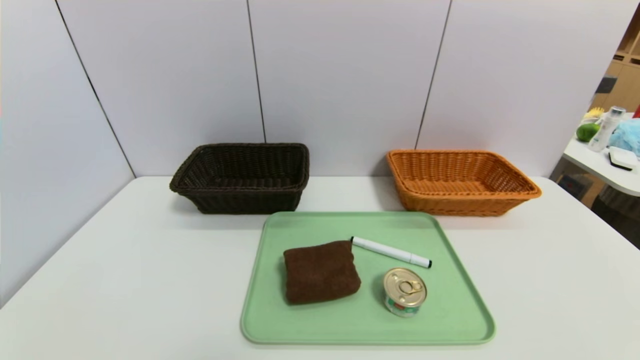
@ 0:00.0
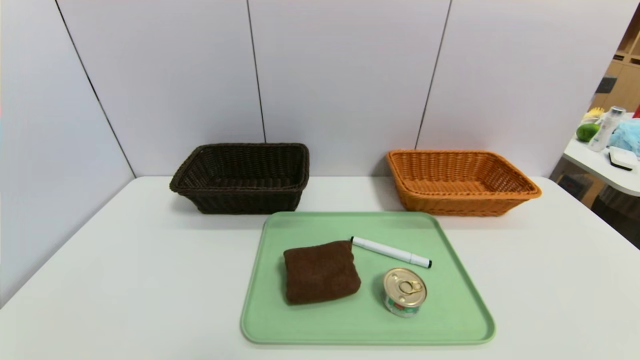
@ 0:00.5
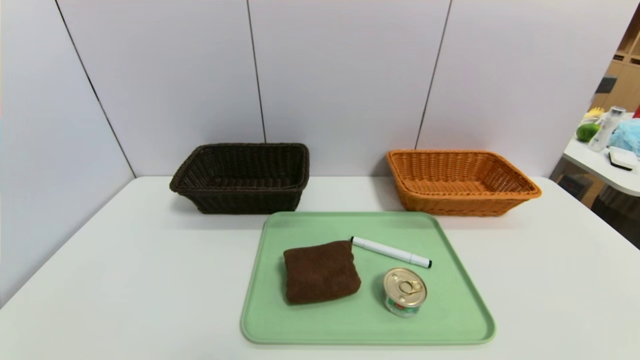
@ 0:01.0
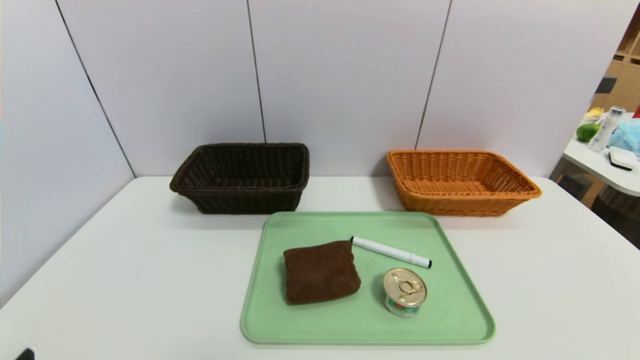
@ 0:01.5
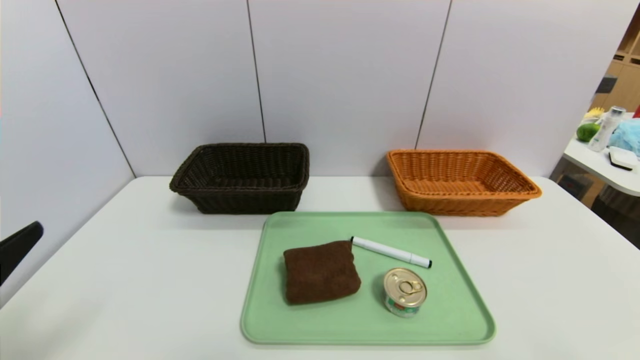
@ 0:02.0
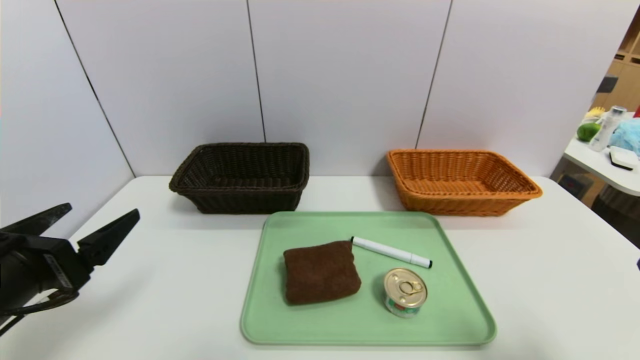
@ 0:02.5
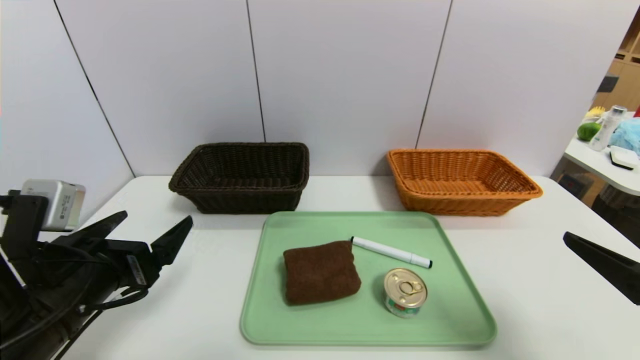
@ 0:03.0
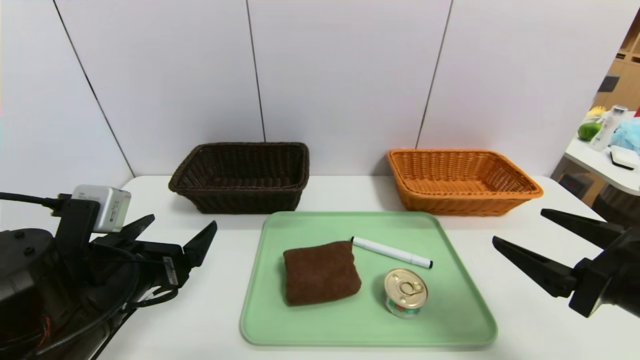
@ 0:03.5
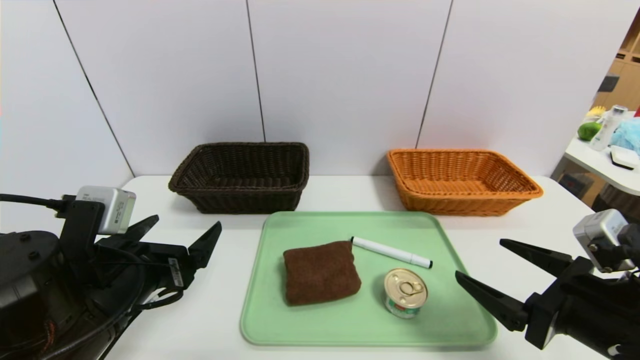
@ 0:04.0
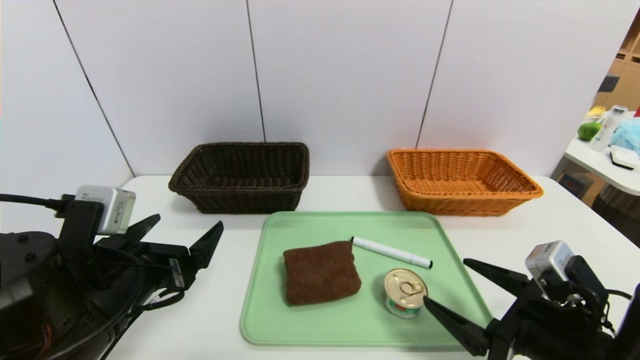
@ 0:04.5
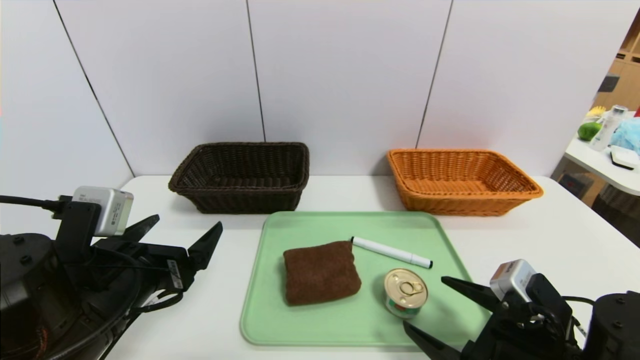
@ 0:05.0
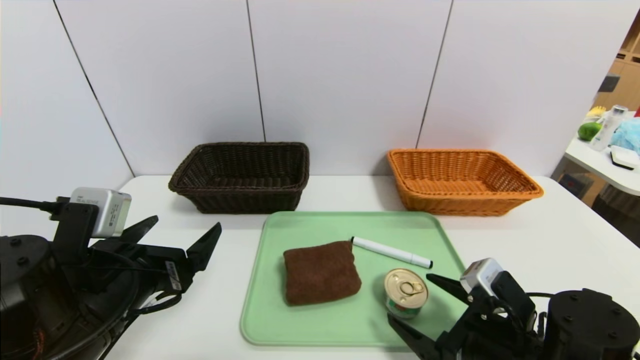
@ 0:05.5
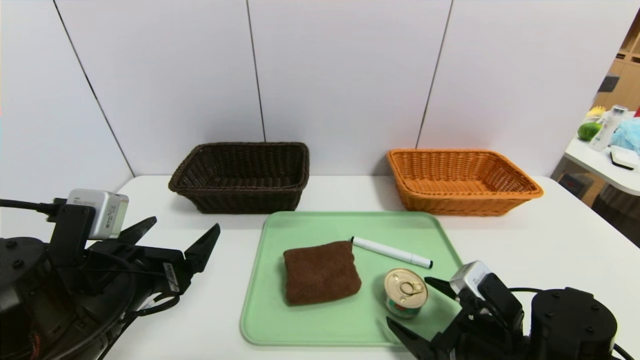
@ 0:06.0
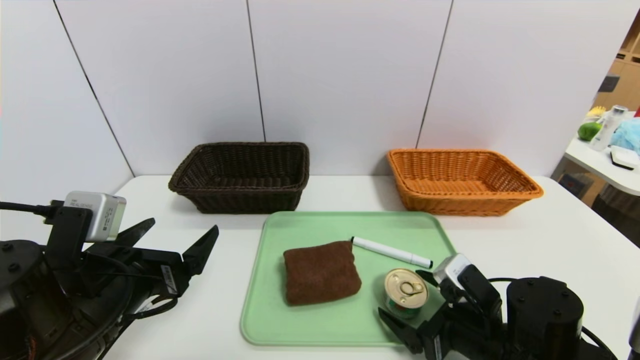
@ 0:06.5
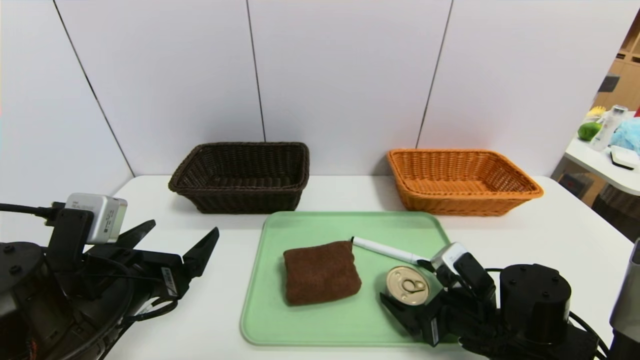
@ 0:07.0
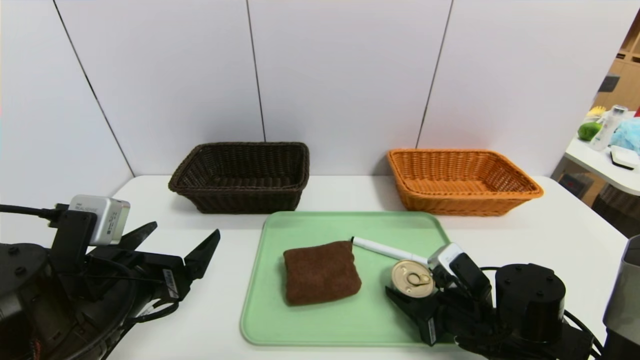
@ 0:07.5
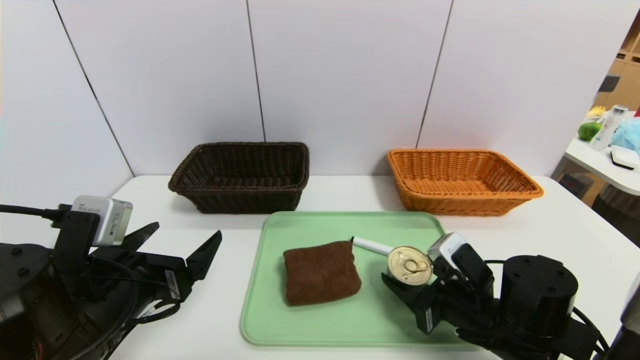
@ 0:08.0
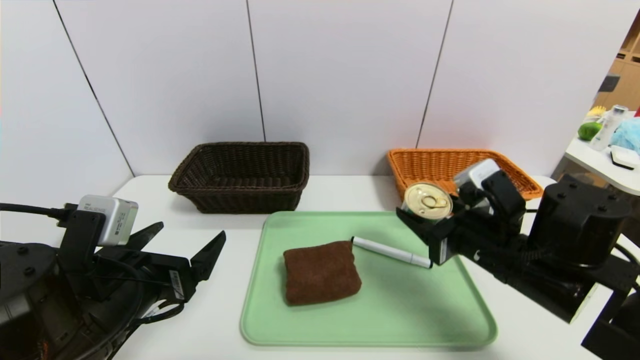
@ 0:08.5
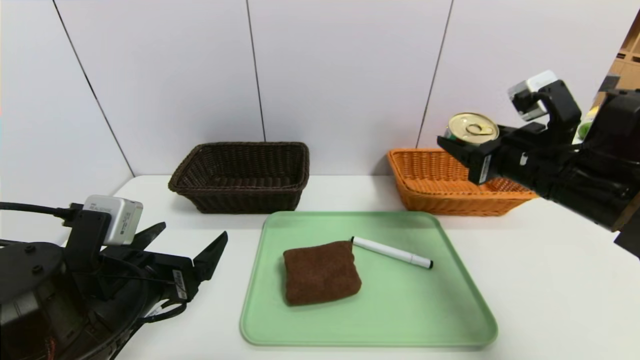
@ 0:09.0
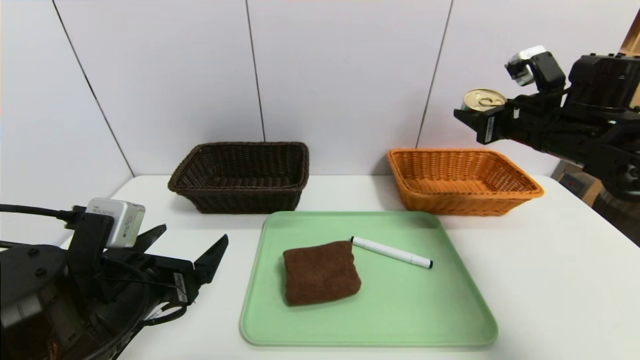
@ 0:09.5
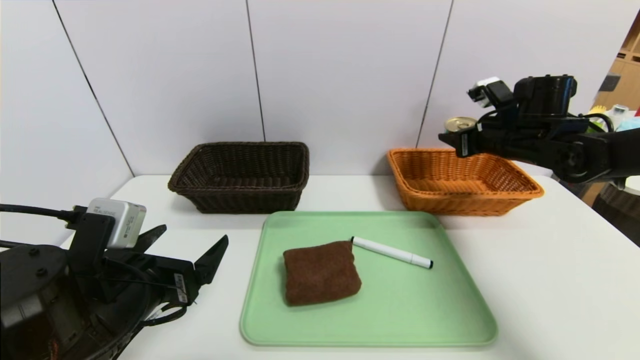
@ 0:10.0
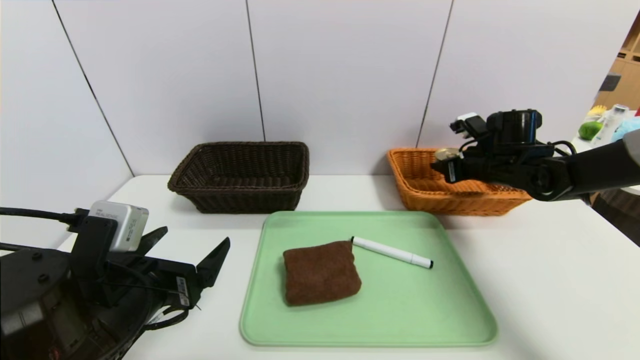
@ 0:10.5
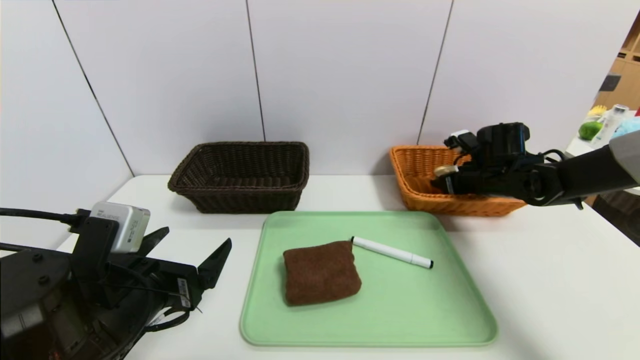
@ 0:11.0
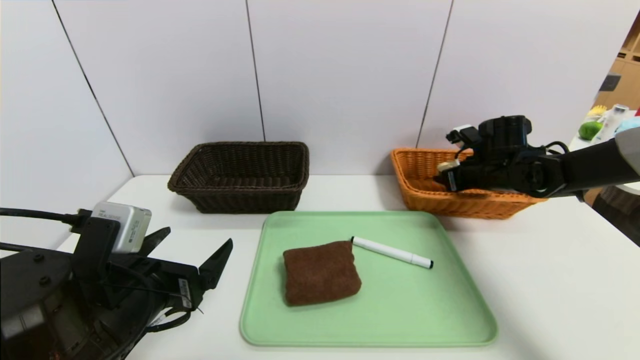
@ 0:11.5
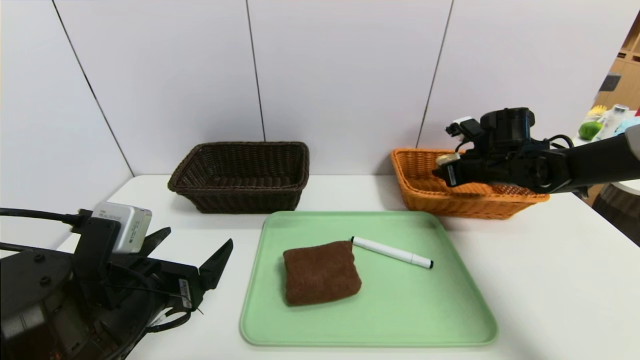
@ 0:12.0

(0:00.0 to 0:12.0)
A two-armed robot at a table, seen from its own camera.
Task of the whole recording: place the food in the right basket with the right gripper, and place the non food items in the left basket with the left gripper.
0:00.0 - 0:02.0: The left gripper heads upward and forward, covering approximately 15 cm.
0:02.0 - 0:04.0: The right gripper goes about 15 cm forward, to the left and downward. The left gripper moves forward, to the right and downward, approximately 15 cm.
0:04.0 - 0:06.0: The right gripper moves downward and to the left, roughly 10 cm.
0:06.0 - 0:08.0: The right gripper closes.
0:08.0 - 0:10.0: The right gripper travels forward, upward and to the right by about 25 cm.
0:10.0 - 0:12.0: The right gripper travels downward by approximately 5 cm.

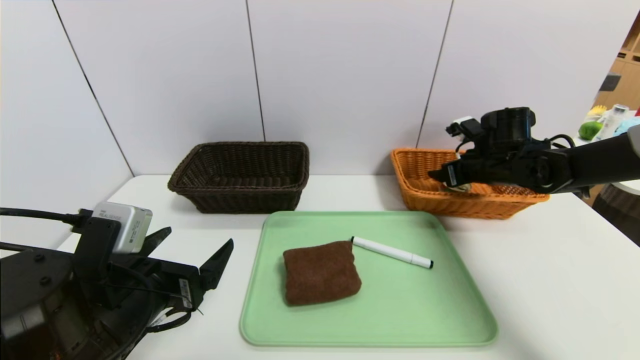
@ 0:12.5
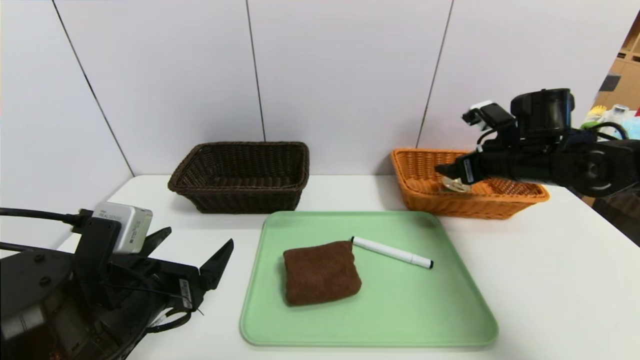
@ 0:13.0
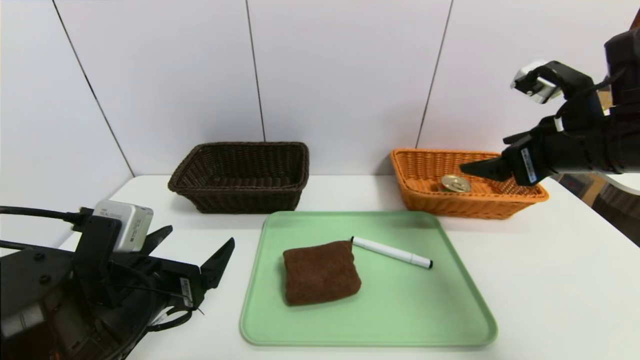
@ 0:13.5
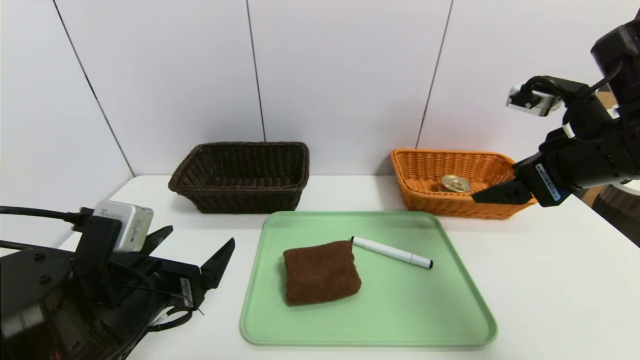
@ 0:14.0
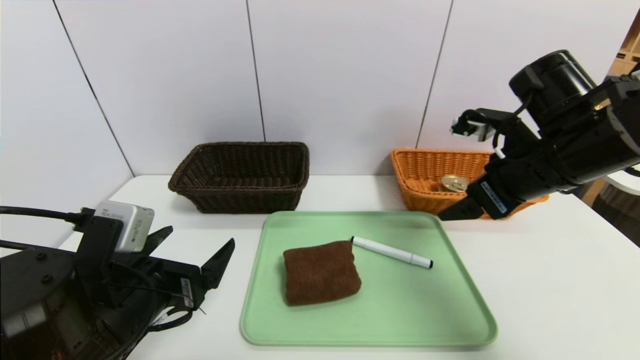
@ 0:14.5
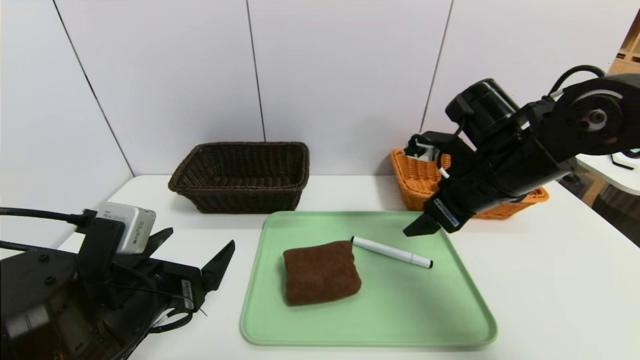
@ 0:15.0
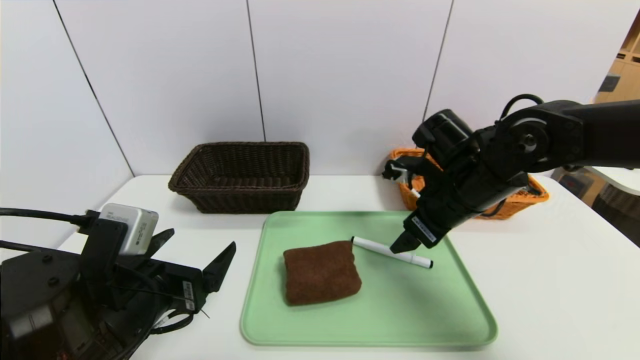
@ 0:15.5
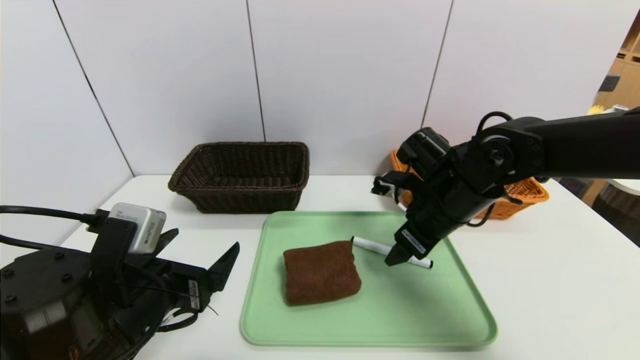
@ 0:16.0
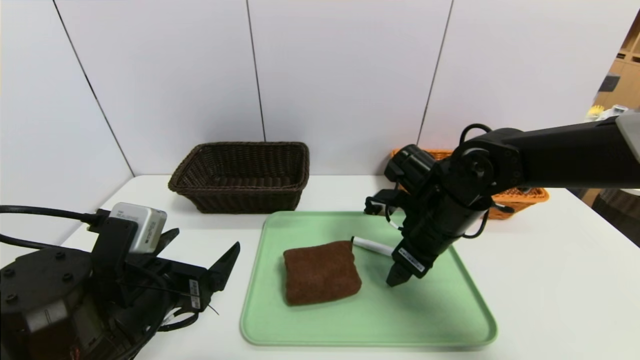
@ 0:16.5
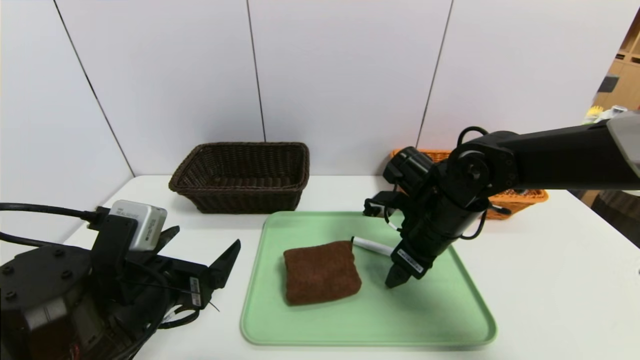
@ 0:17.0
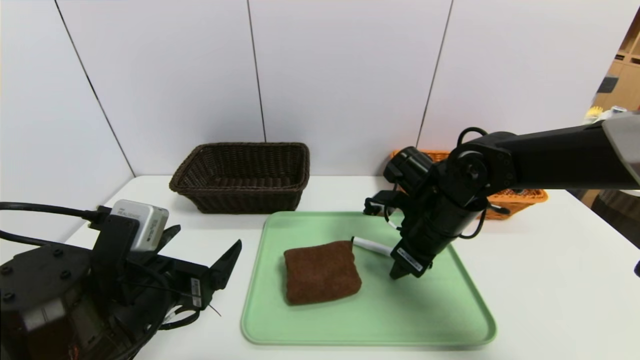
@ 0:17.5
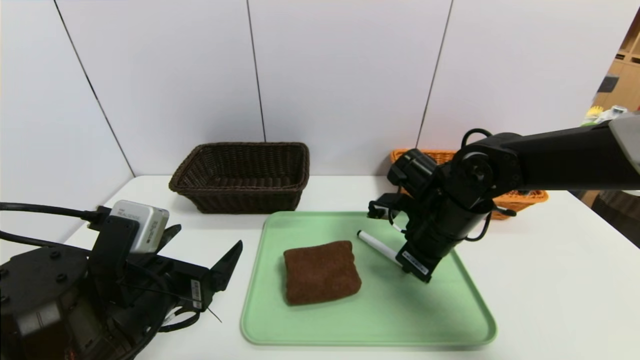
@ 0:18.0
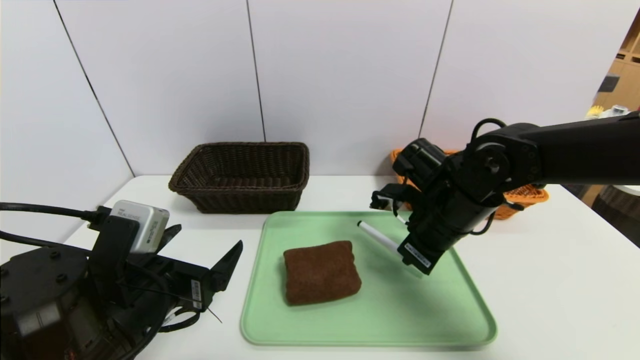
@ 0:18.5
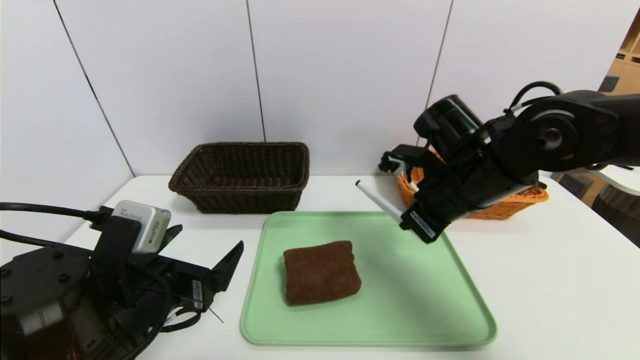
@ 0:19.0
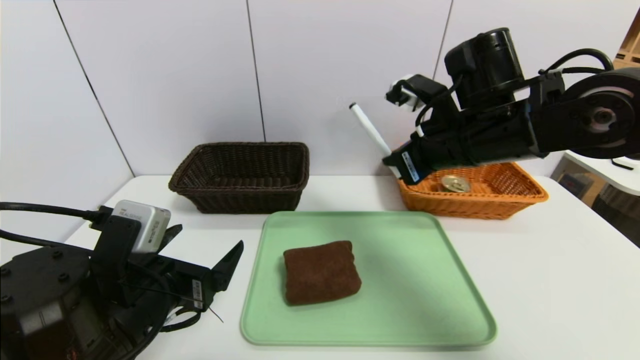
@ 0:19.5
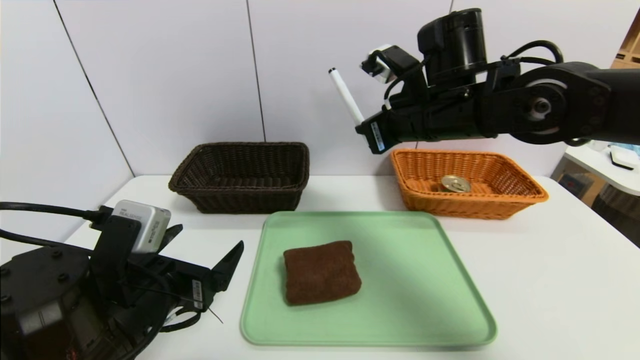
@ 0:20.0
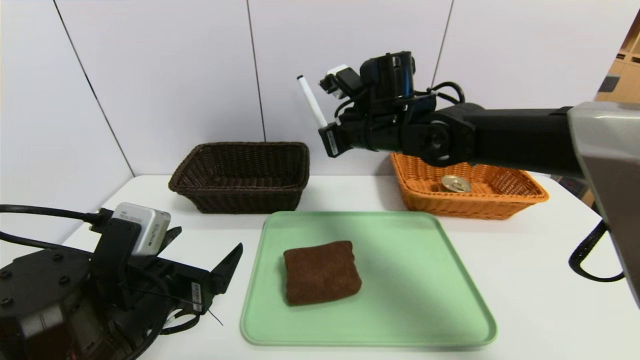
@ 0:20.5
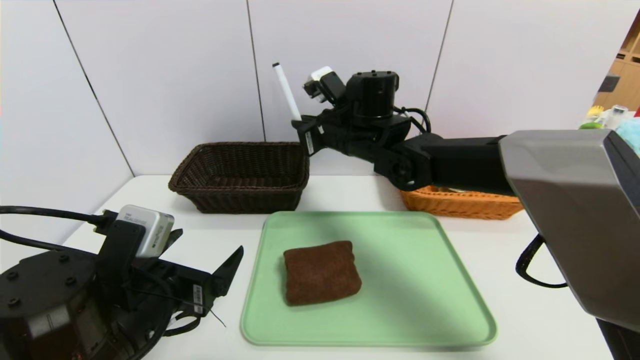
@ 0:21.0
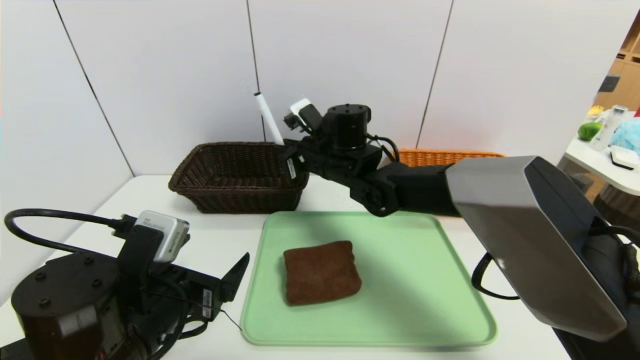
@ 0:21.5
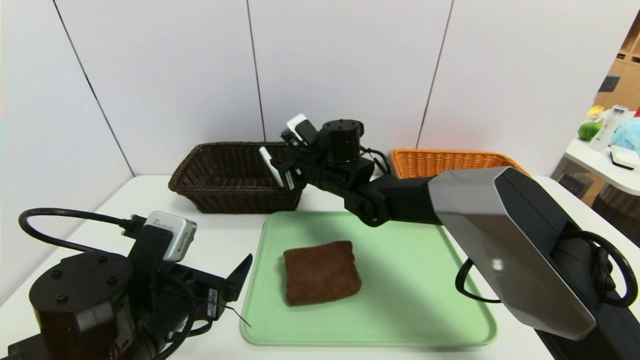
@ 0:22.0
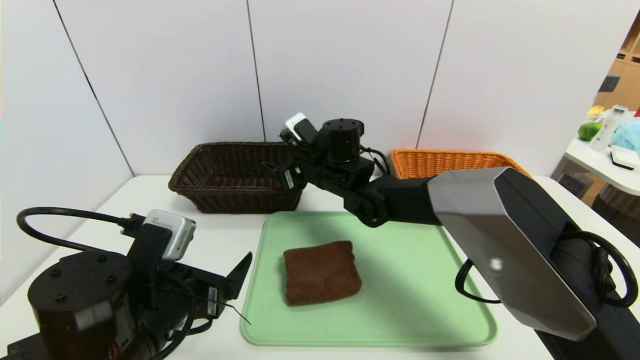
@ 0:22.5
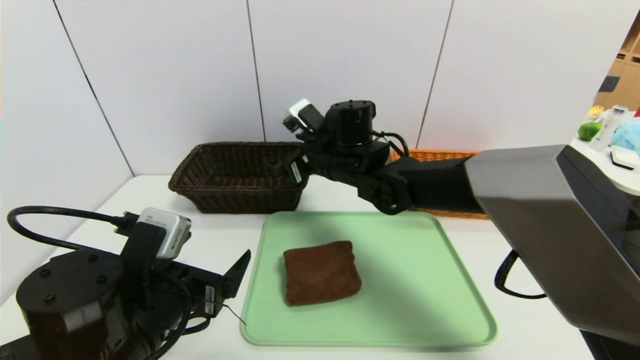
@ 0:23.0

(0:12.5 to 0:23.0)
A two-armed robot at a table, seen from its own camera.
Task of the whole recording: place the food in the right basket with the right gripper, and place the non food items in the left basket with the left gripper.
0:12.5 - 0:14.5: The right gripper travels backward and upward by roughly 15 cm.
0:14.5 - 0:16.5: The right gripper shifts approximately 15 cm downward and to the left.
0:16.5 - 0:19.0: The right gripper shifts about 5 cm upward, and closes its fingers.
0:19.0 - 0:21.0: The right gripper shifts some 15 cm to the left and forward.
0:21.0 - 0:23.0: The right gripper opens up.
